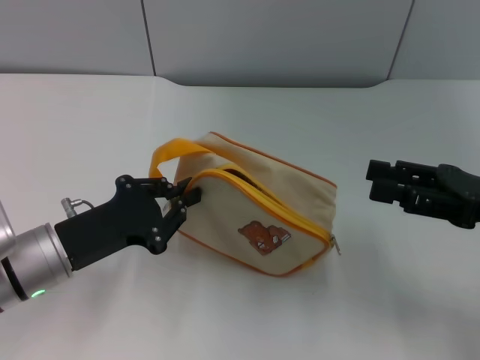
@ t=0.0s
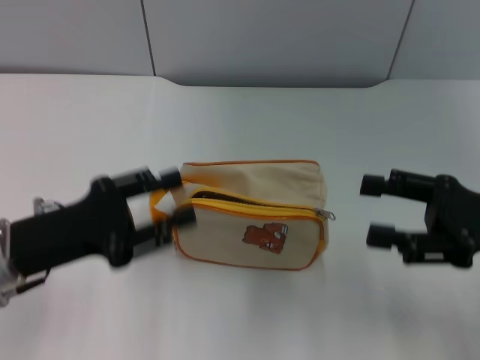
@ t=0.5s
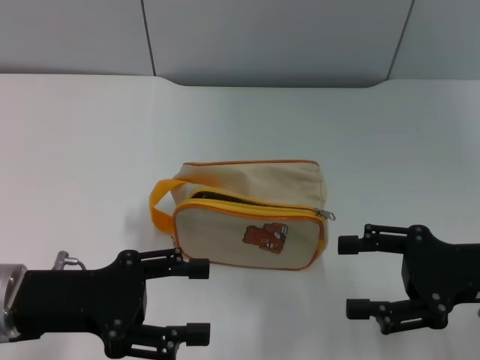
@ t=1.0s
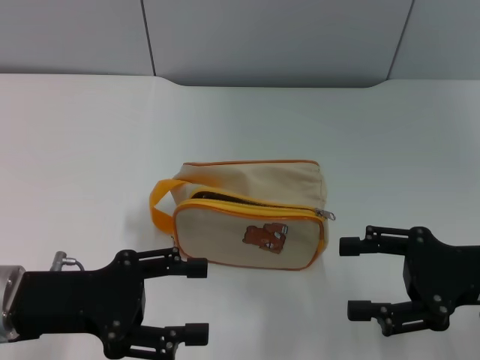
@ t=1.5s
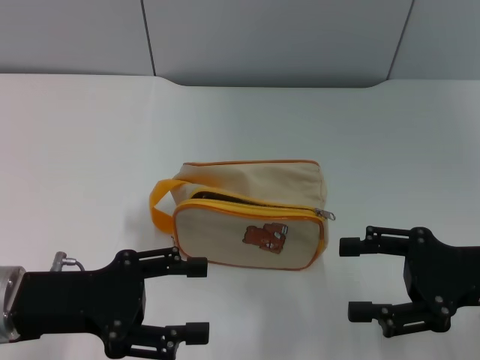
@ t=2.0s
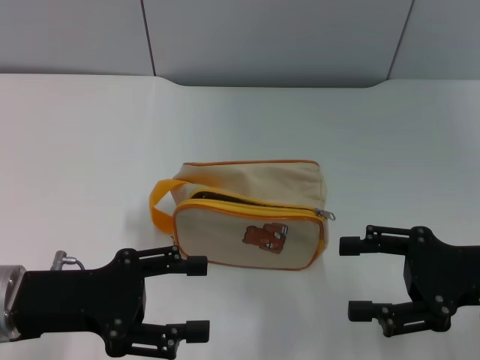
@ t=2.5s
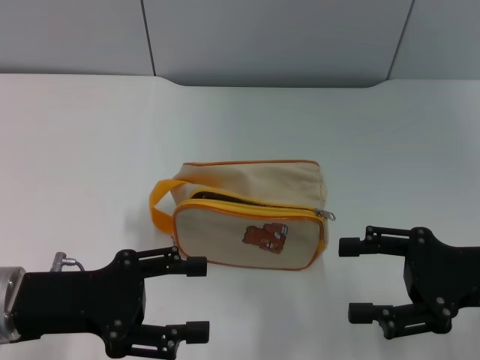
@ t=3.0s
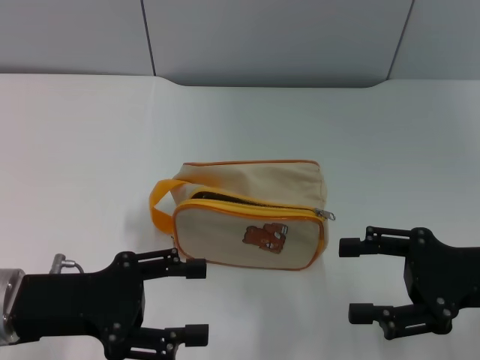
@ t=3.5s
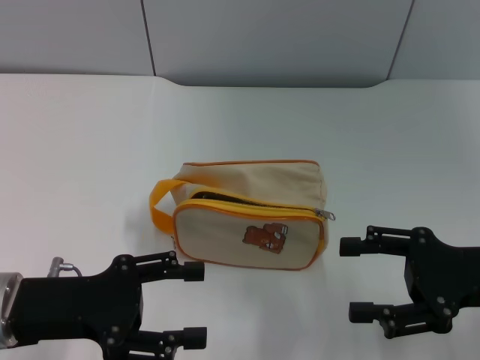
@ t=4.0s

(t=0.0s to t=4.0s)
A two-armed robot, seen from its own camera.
t=0.0s - t=2.0s: The left gripper shifts by about 5 cm, and opens up; the right gripper opens up.
t=2.0s - t=4.0s: Neither gripper changes place.

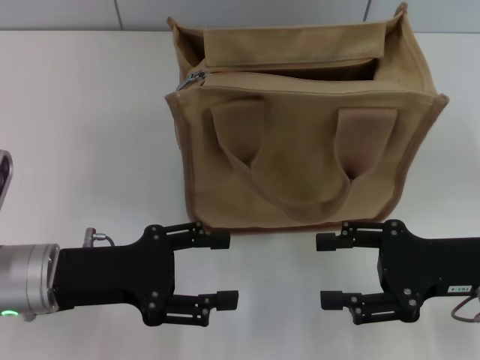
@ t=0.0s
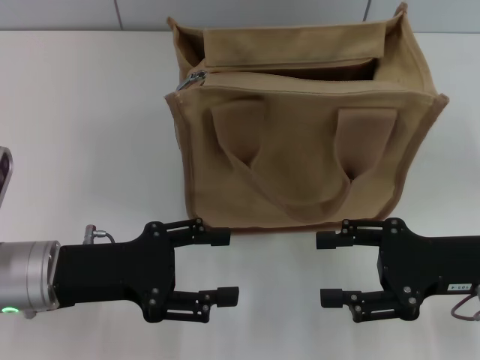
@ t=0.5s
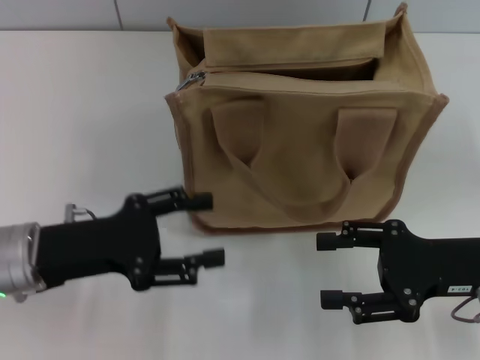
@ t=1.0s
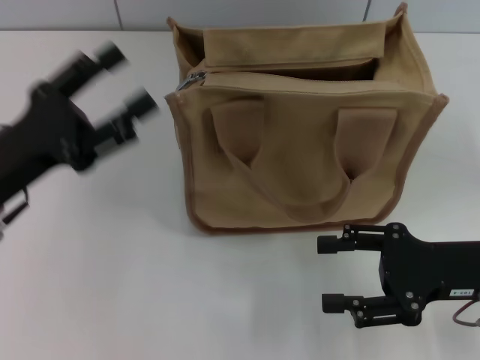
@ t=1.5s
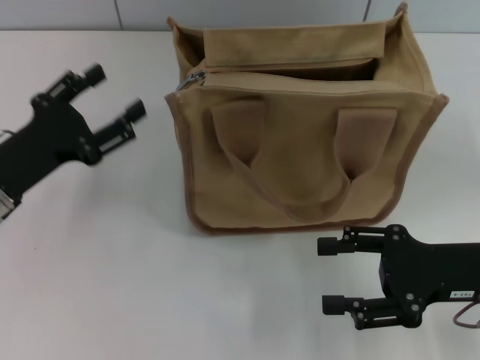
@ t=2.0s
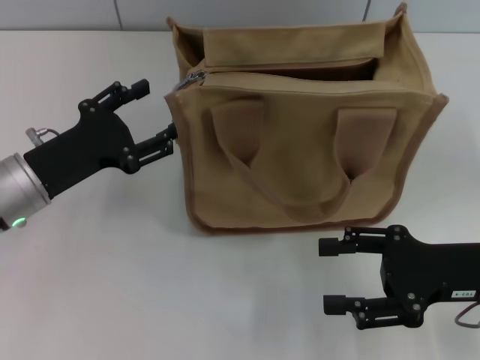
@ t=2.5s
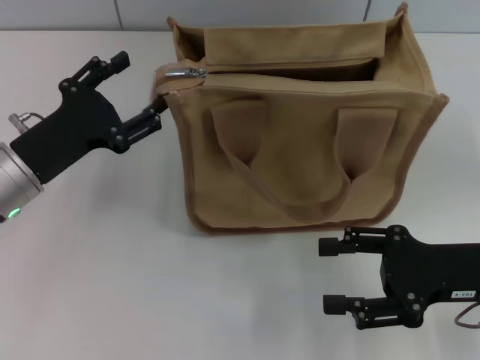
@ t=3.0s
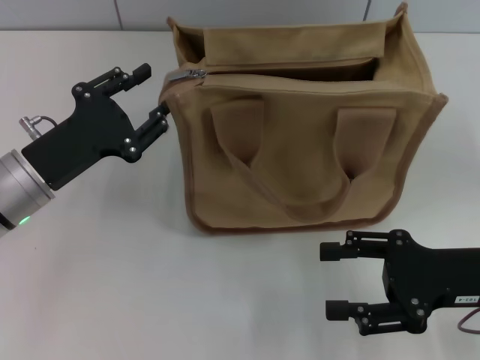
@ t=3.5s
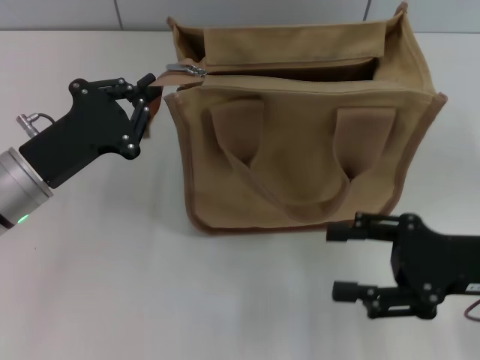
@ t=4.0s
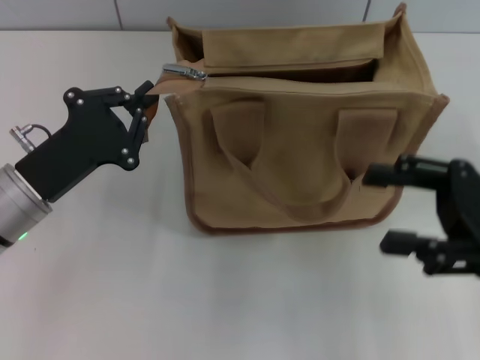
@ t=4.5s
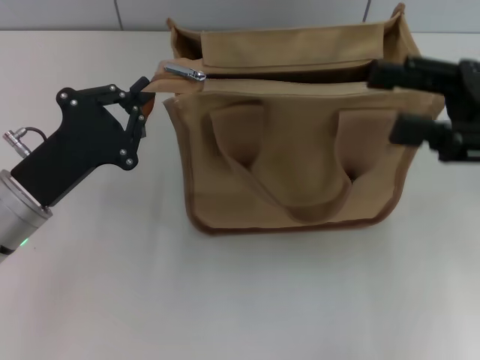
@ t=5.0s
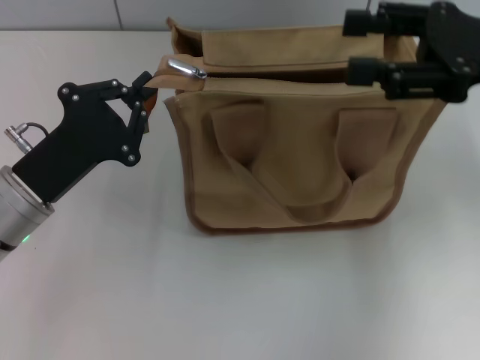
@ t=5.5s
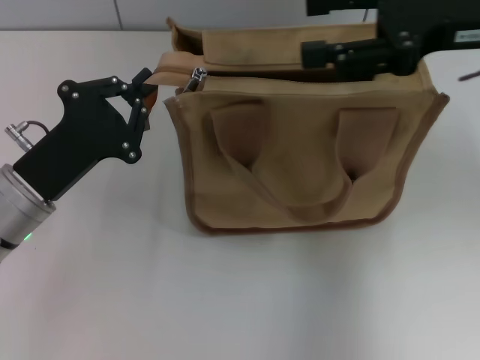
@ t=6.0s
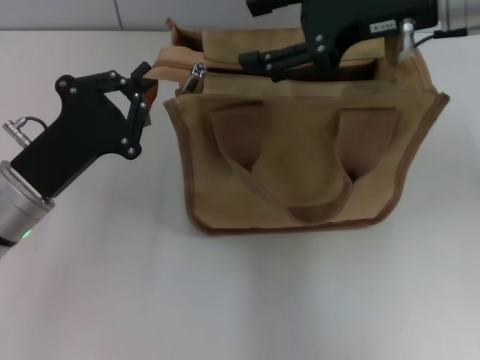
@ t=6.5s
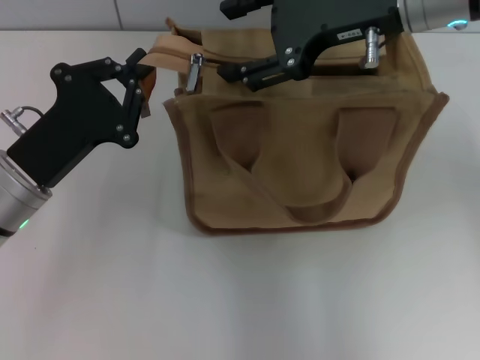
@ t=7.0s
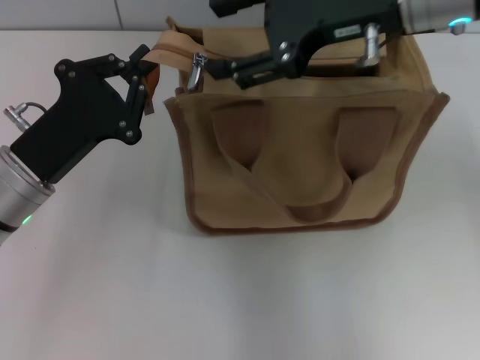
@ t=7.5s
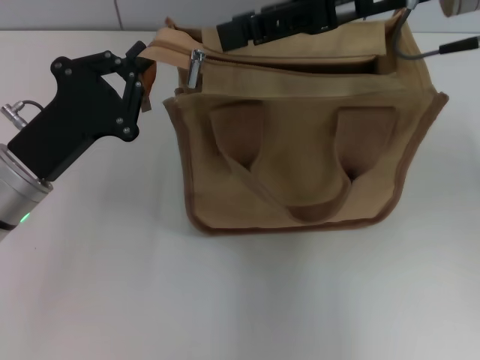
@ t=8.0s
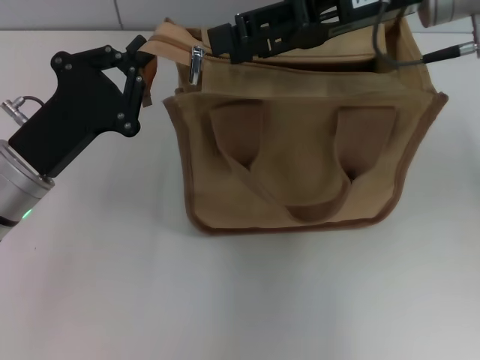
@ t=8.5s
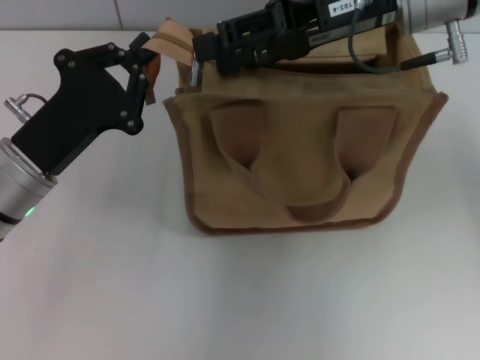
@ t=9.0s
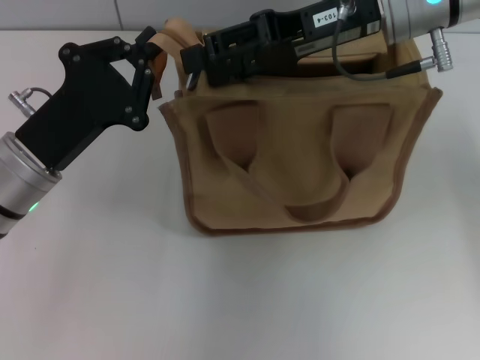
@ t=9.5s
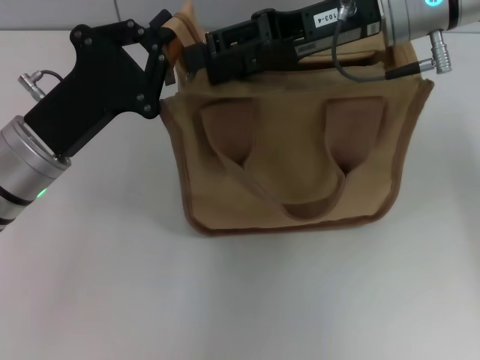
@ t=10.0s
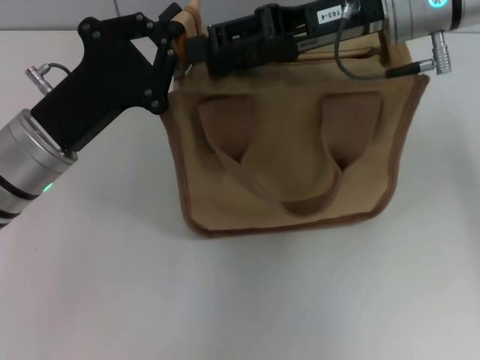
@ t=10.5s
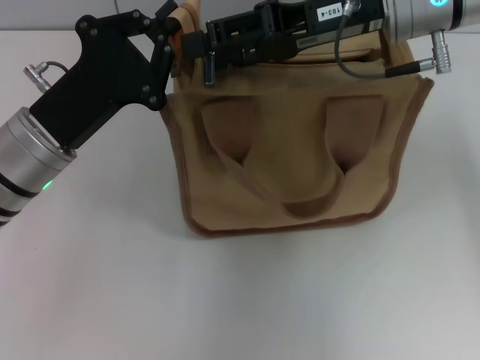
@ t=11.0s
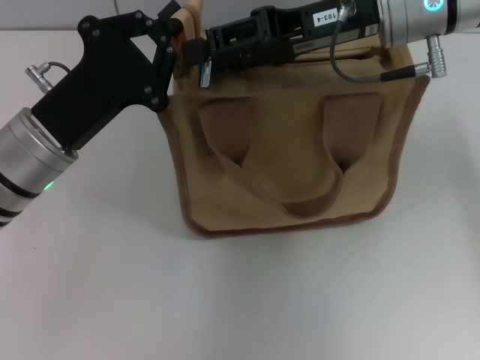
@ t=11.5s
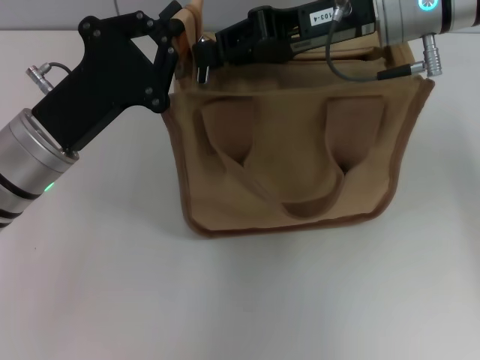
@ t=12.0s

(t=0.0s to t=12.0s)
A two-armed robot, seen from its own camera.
t=0.0s - t=2.0s: The left gripper shifts by approximately 5 cm.
t=2.0s - t=4.0s: The left gripper closes.
t=4.0s - t=6.0s: The right gripper moves upward and forward, roughly 20 cm.
t=6.0s - t=8.0s: The right gripper travels to the left by approximately 5 cm.
t=8.0s - t=10.0s: The right gripper shifts by some 5 cm.
t=10.0s - t=12.0s: The right gripper closes up.

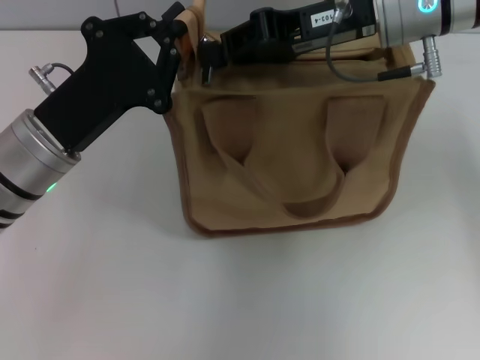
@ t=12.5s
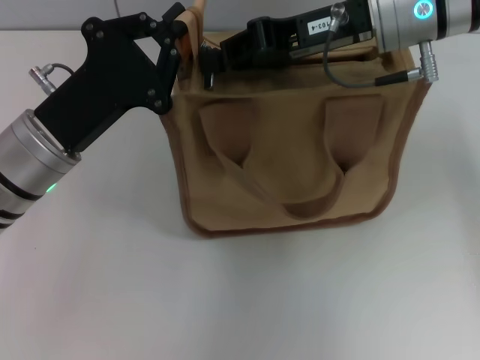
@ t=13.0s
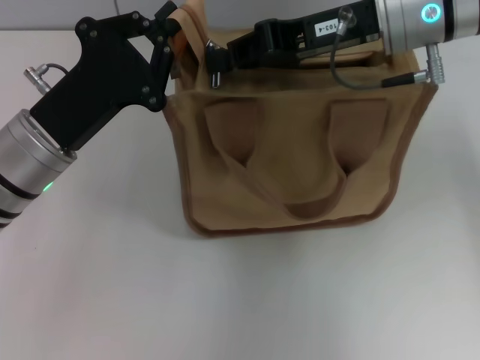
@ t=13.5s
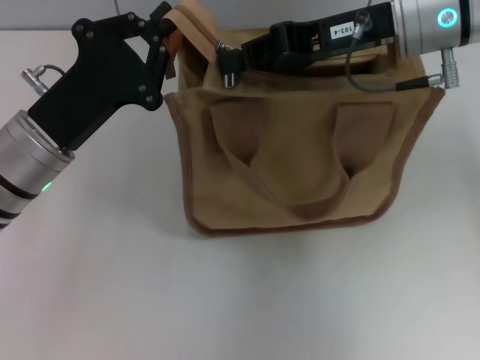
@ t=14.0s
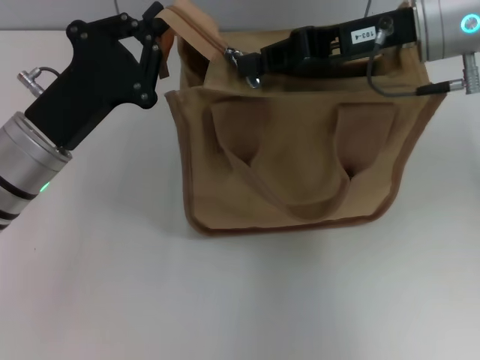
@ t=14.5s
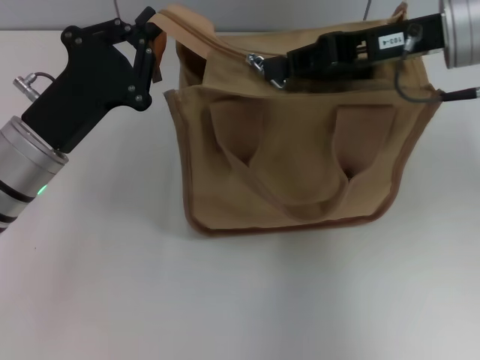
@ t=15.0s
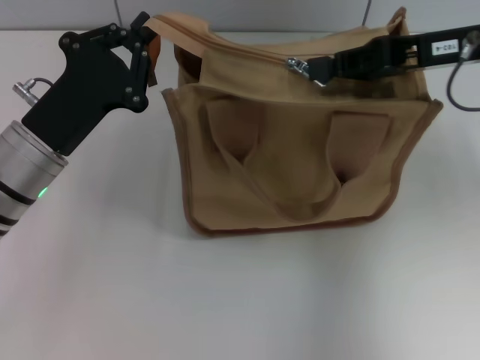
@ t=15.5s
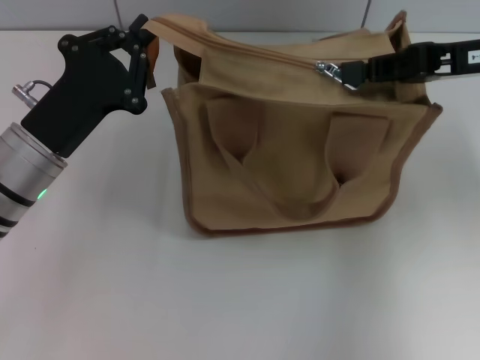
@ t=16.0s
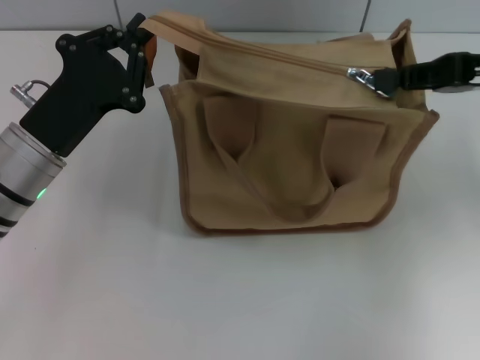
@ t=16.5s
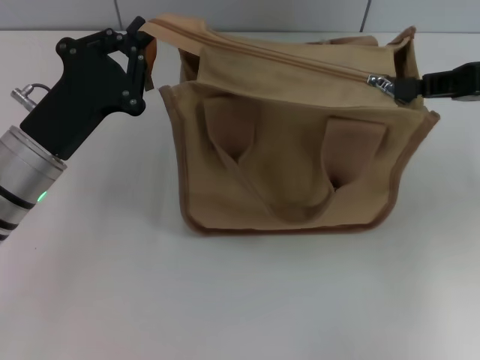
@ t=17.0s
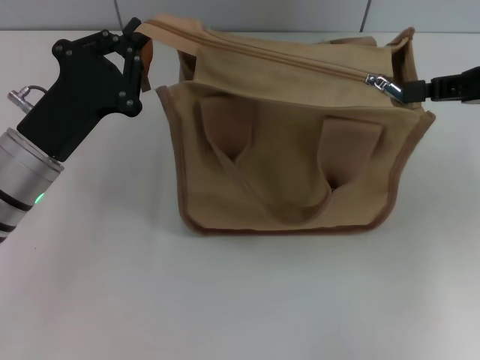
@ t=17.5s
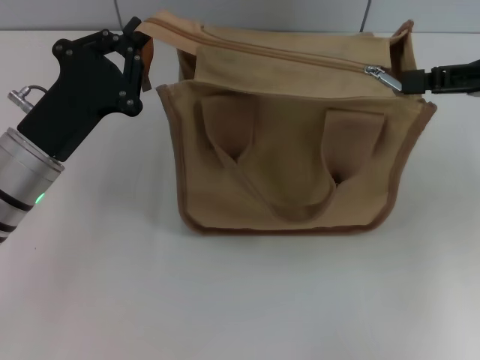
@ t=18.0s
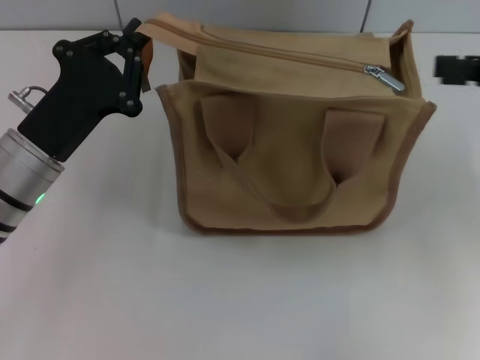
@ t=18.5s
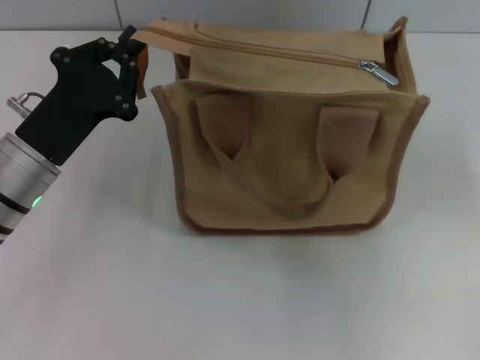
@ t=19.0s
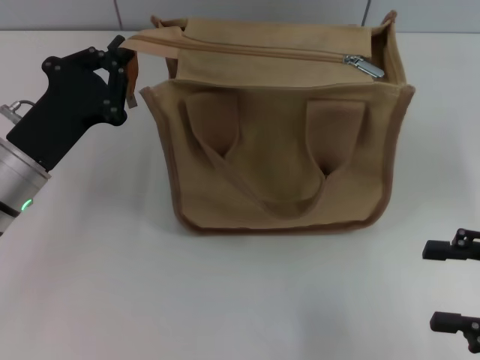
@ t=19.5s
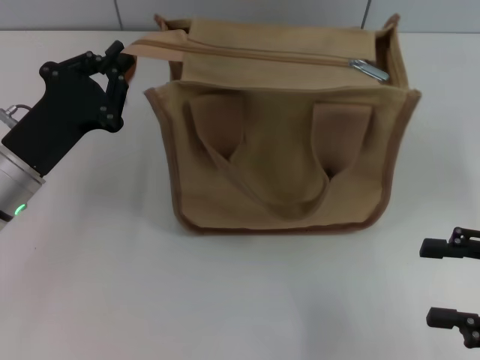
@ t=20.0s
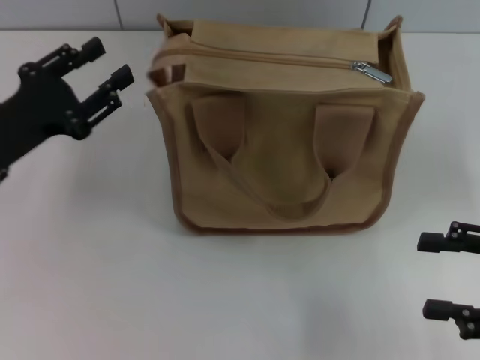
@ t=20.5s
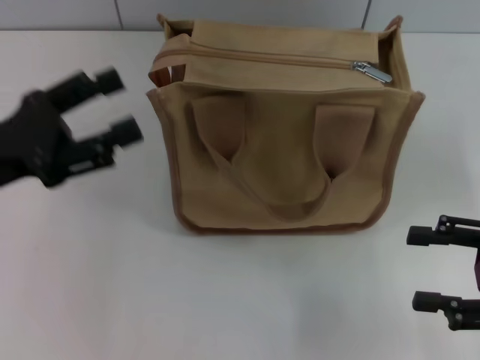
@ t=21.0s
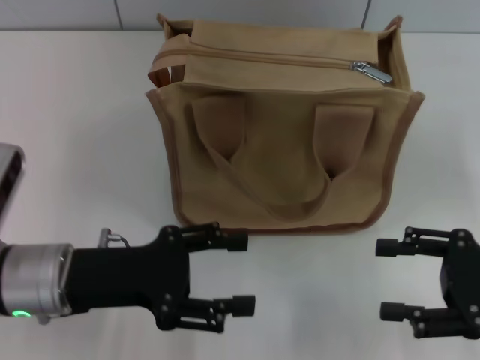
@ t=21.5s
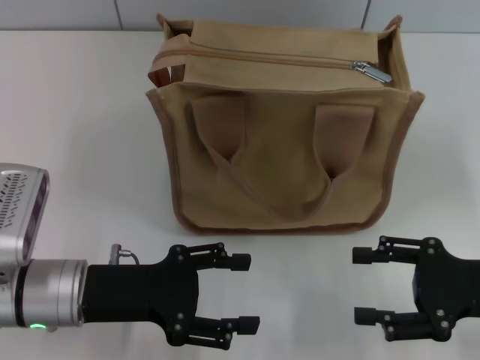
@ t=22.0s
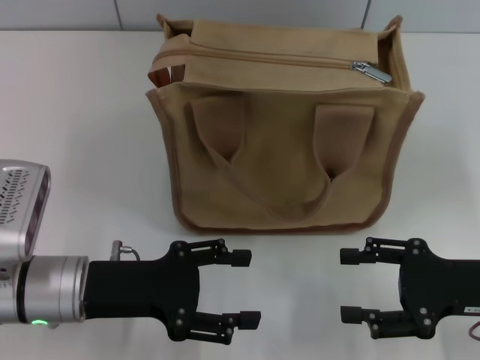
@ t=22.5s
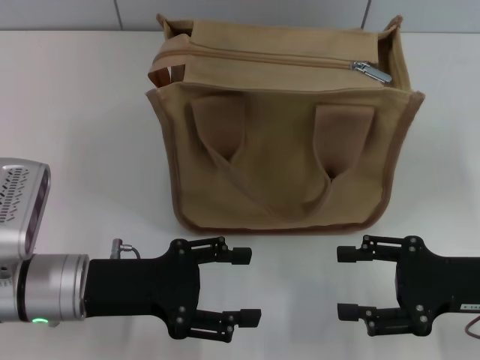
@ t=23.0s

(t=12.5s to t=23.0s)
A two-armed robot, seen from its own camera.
Step, t=12.5s - t=18.0s: Pull up the zipper with your right hand.
t=12.5s - t=14.5s: The grippers stay close to where they were, moving slightly.
t=14.5s - t=16.5s: The right gripper moves to the right, roughly 10 cm.
t=16.5s - t=19.0s: The right gripper is displaced backward and to the right by roughly 15 cm, and opens its fingers.
t=19.0s - t=21.0s: The right gripper goes about 5 cm downward. Meanwhile the left gripper heads to the left and upward, covering about 10 cm, and opens up.
t=21.0s - t=23.0s: The left gripper shifts some 10 cm to the right and downward, while the right gripper changes place by approximately 5 cm.
